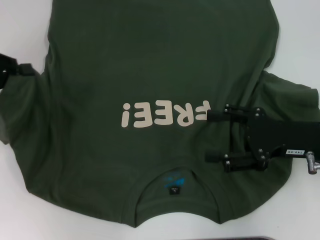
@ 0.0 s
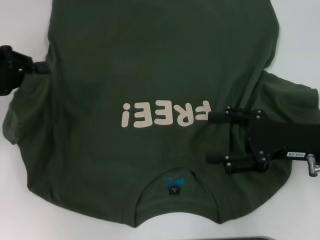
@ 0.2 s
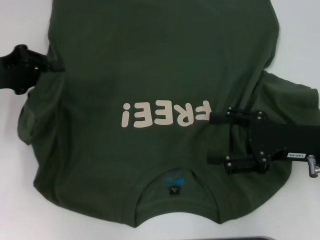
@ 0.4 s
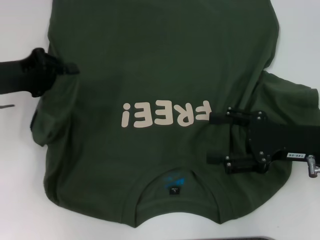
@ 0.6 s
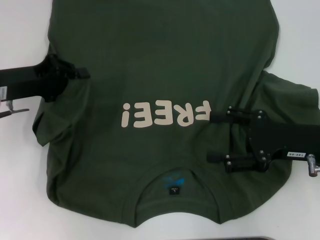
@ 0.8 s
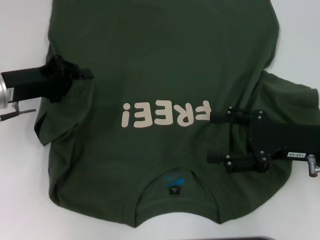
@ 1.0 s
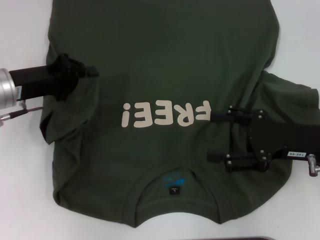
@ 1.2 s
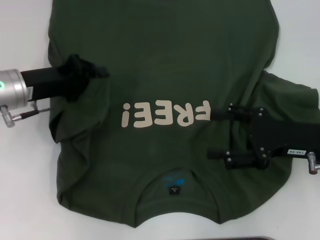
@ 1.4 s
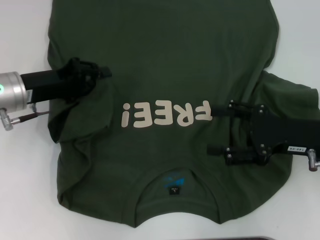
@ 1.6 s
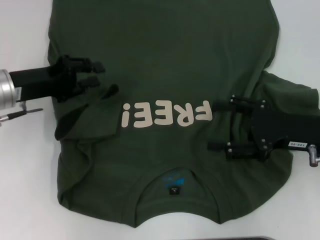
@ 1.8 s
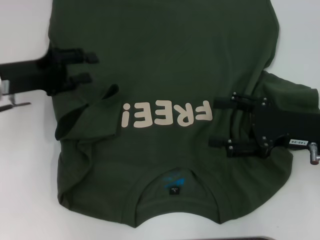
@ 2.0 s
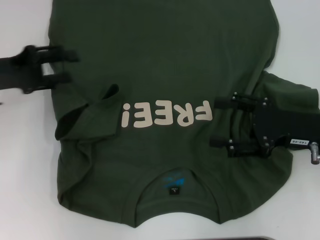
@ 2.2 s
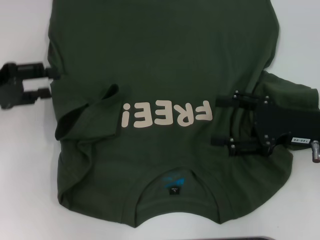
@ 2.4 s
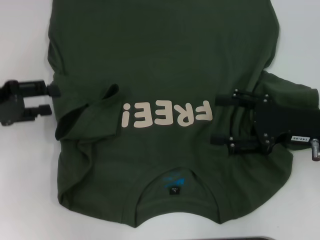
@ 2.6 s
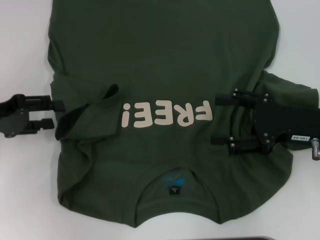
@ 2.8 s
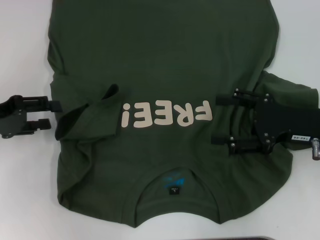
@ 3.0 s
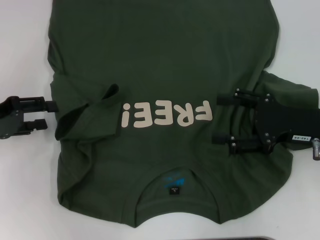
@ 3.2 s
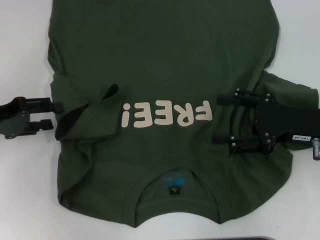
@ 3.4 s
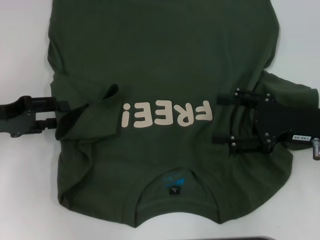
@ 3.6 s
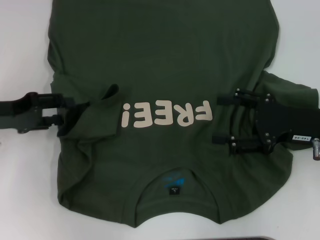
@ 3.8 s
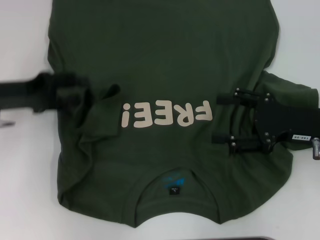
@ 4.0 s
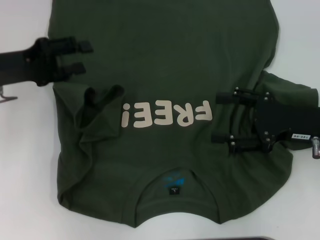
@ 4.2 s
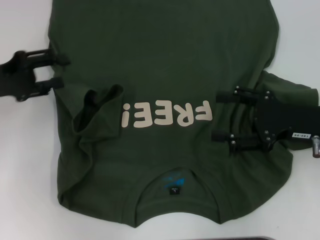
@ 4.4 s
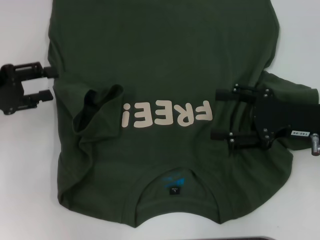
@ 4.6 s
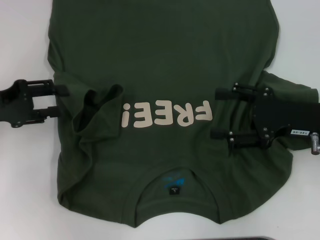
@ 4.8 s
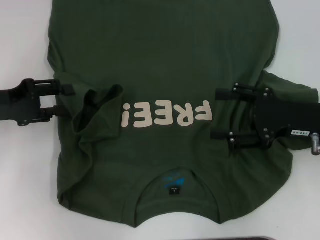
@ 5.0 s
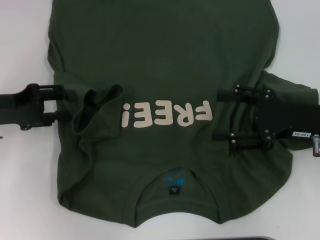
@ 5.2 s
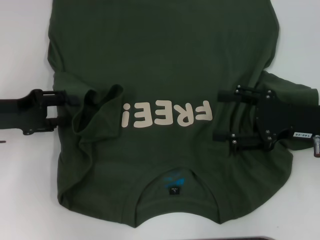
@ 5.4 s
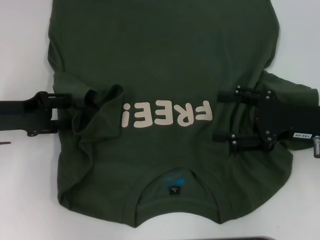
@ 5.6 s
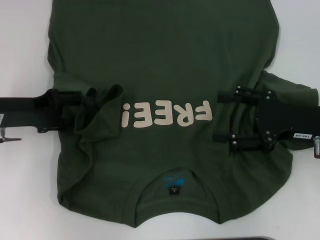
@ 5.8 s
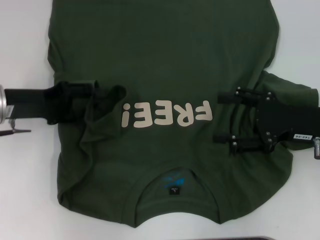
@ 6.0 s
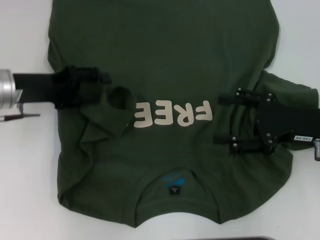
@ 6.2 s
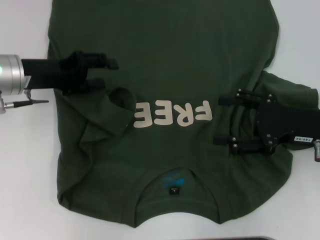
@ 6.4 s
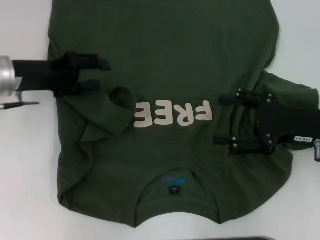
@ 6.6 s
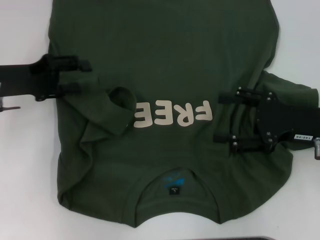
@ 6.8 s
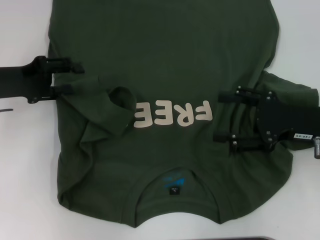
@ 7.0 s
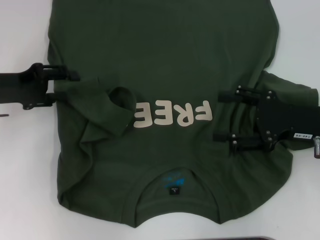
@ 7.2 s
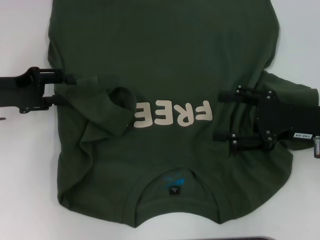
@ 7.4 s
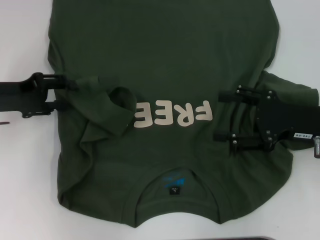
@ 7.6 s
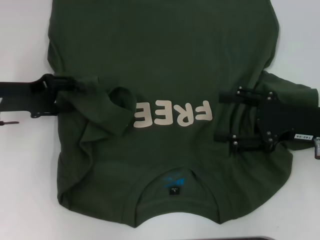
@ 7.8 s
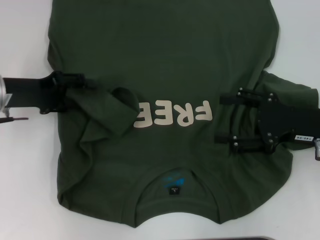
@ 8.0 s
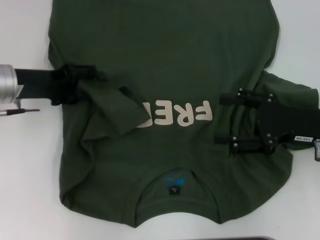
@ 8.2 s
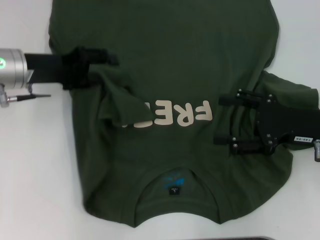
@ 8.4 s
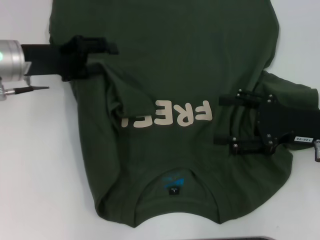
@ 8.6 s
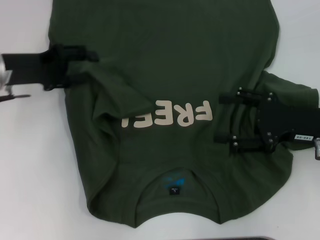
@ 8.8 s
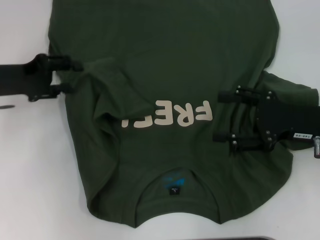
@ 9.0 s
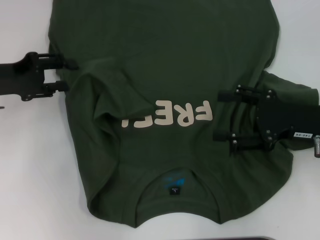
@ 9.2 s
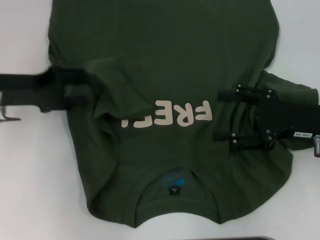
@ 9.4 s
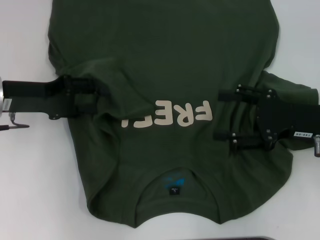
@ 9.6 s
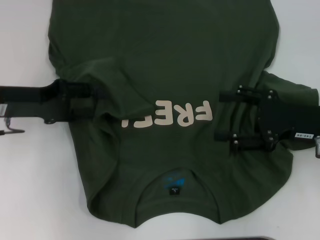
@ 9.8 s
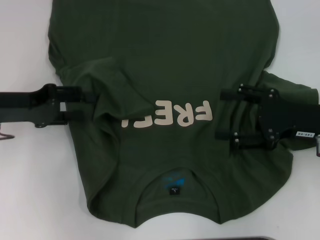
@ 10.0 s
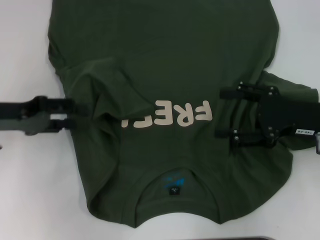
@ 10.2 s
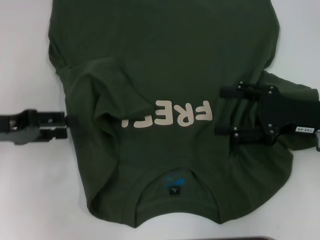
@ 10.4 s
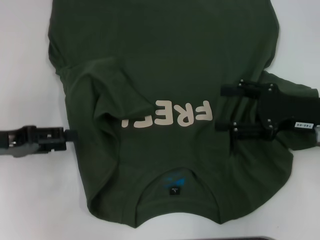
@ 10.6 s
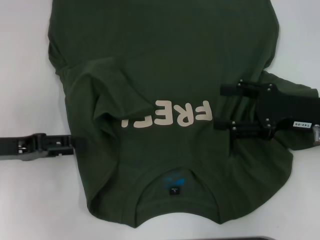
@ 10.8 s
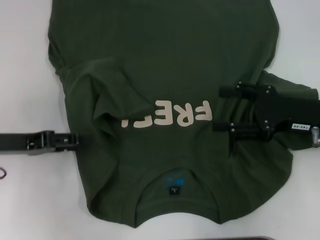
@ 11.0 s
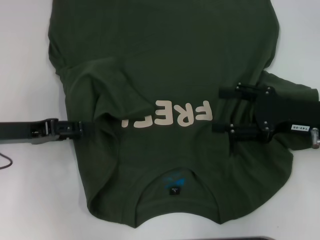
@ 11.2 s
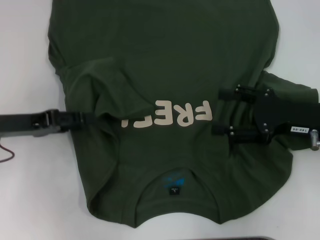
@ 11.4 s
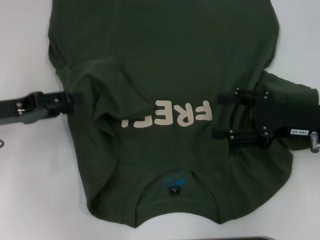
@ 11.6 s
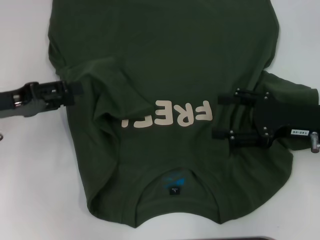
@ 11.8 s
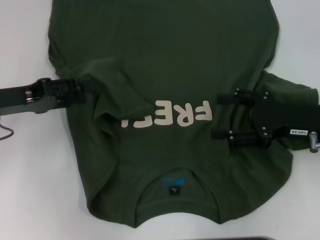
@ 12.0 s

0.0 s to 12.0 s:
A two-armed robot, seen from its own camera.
Step, 0.0 to 10.8 s: Fold the bottom left sleeve with your left hand.
0.0 to 1.6 s: The left gripper is displaced to the right and downward by some 10 cm.
1.6 to 3.0 s: The left gripper travels to the left by some 10 cm, and opens up.
4.4 to 6.0 s: The grippers move only a little.
6.0 to 7.6 s: The grippers move only a little.
9.0 to 10.4 s: The left gripper is displaced backward by approximately 5 cm.
10.4 to 12.0 s: There are only small adjustments of the grippers.

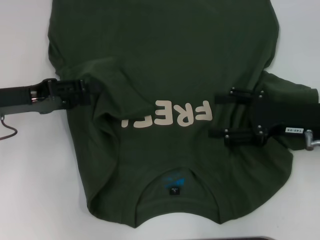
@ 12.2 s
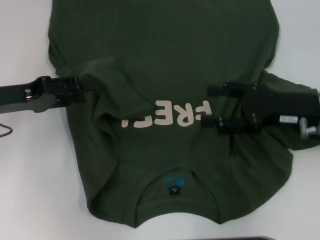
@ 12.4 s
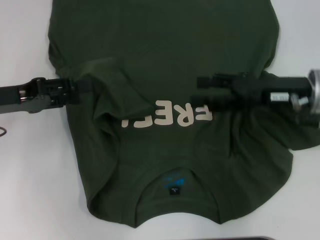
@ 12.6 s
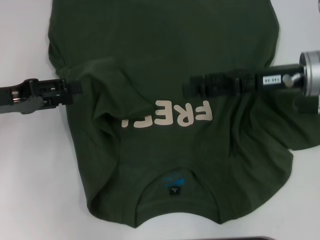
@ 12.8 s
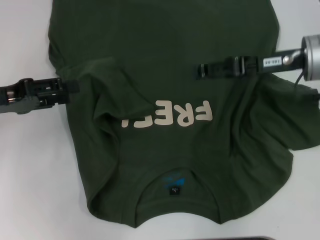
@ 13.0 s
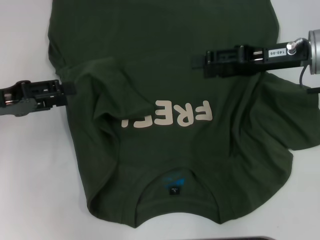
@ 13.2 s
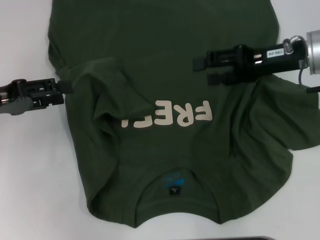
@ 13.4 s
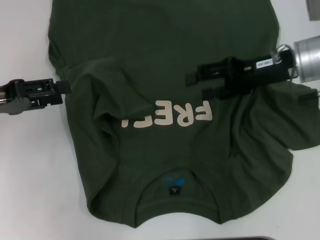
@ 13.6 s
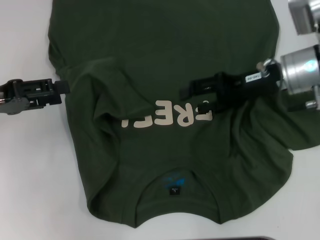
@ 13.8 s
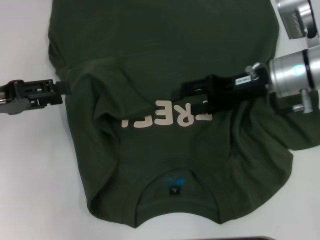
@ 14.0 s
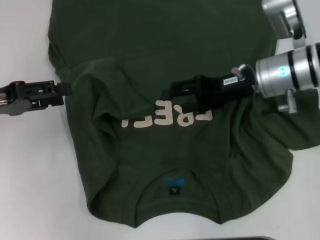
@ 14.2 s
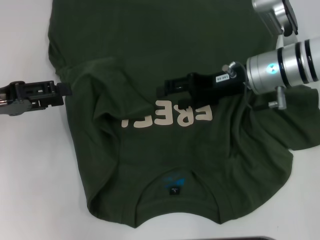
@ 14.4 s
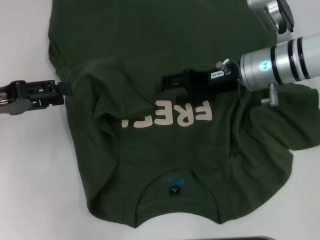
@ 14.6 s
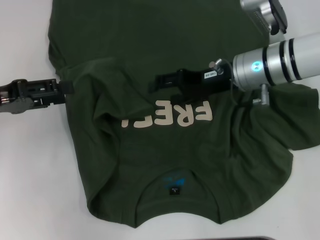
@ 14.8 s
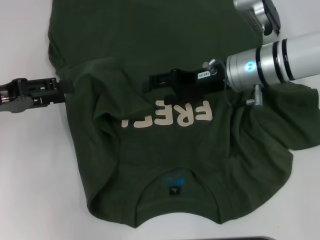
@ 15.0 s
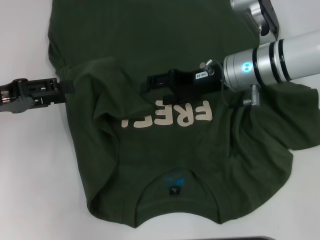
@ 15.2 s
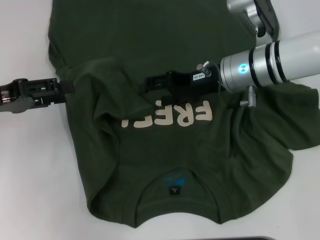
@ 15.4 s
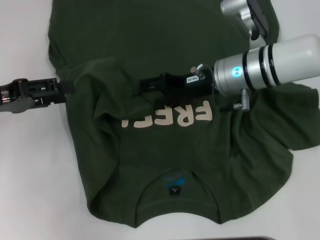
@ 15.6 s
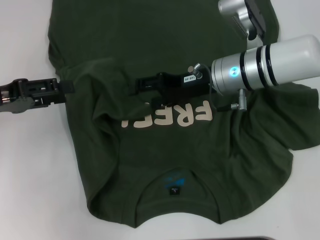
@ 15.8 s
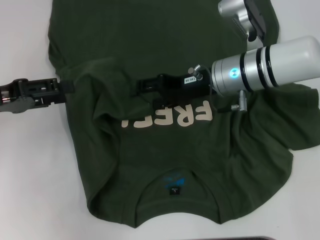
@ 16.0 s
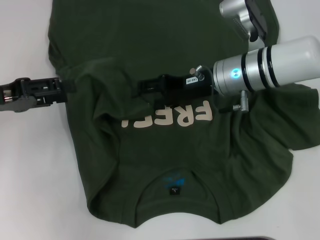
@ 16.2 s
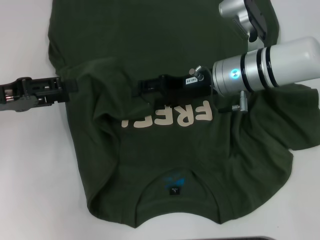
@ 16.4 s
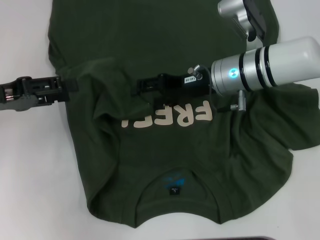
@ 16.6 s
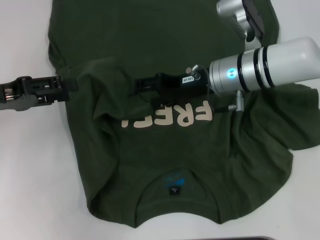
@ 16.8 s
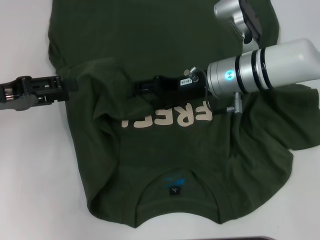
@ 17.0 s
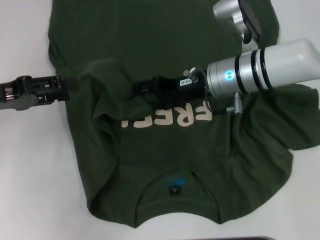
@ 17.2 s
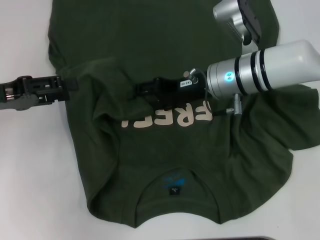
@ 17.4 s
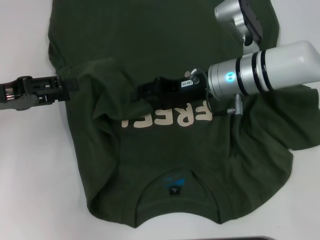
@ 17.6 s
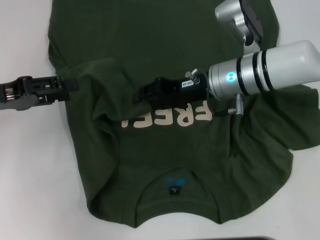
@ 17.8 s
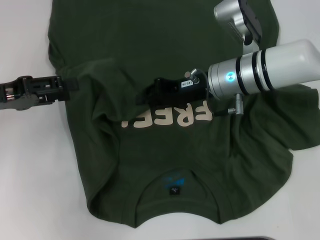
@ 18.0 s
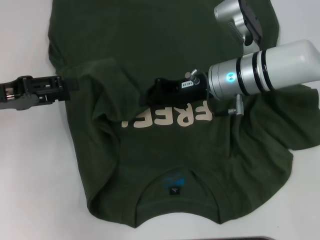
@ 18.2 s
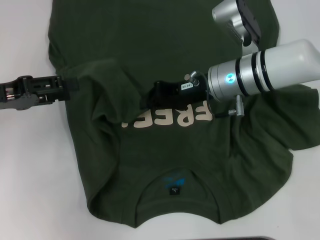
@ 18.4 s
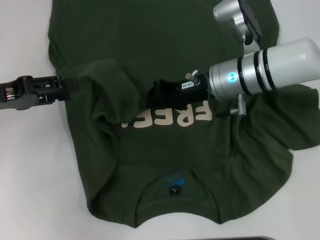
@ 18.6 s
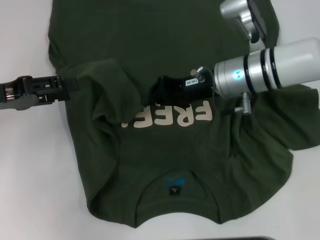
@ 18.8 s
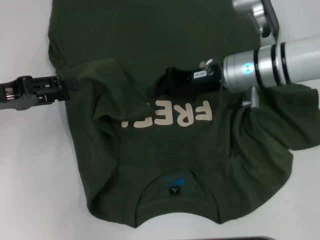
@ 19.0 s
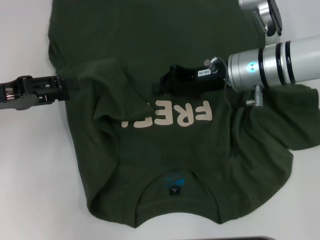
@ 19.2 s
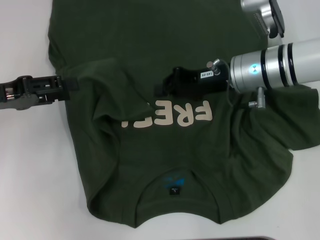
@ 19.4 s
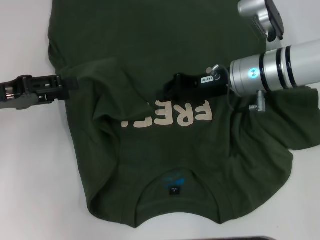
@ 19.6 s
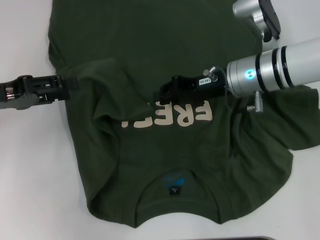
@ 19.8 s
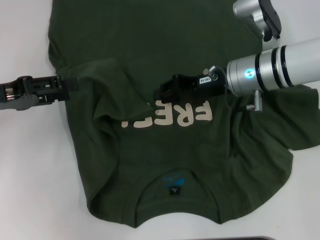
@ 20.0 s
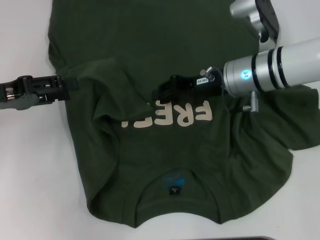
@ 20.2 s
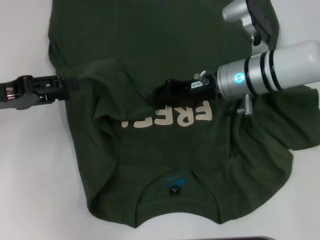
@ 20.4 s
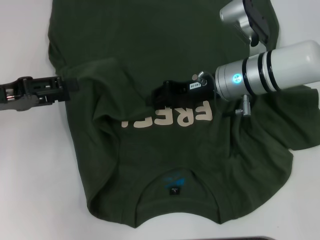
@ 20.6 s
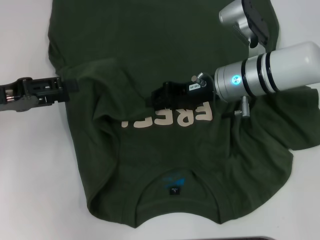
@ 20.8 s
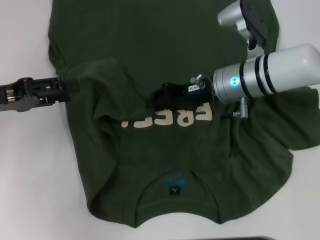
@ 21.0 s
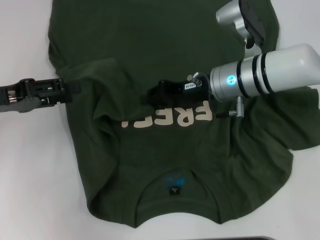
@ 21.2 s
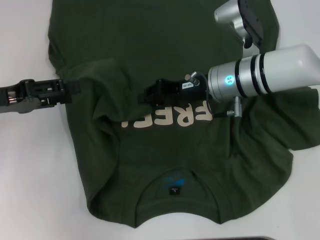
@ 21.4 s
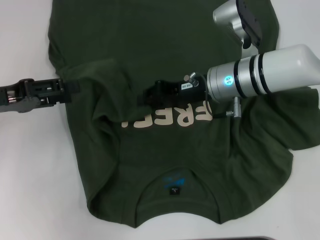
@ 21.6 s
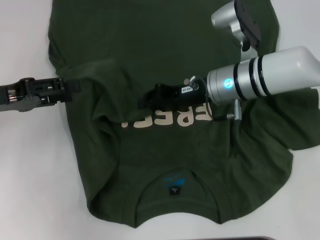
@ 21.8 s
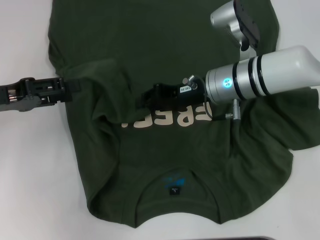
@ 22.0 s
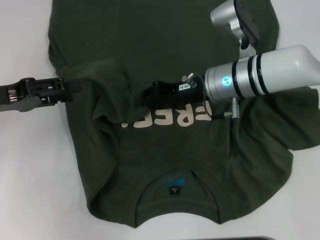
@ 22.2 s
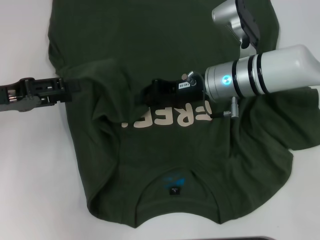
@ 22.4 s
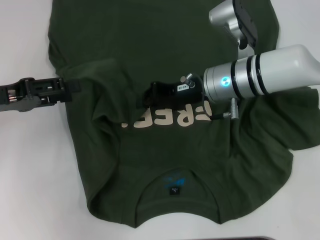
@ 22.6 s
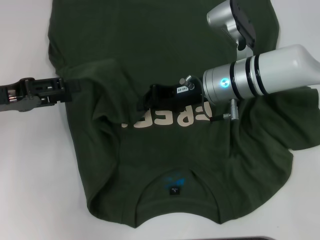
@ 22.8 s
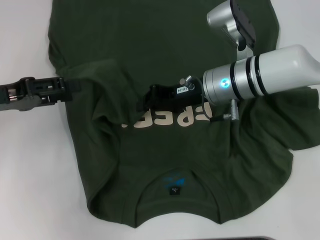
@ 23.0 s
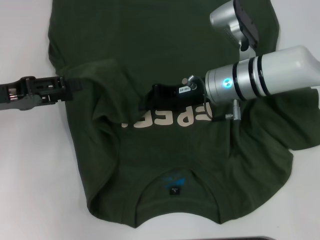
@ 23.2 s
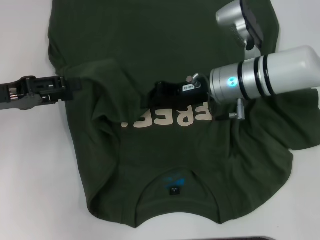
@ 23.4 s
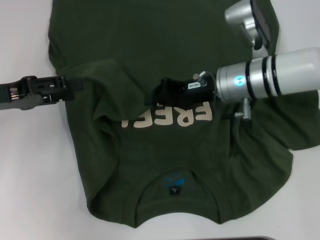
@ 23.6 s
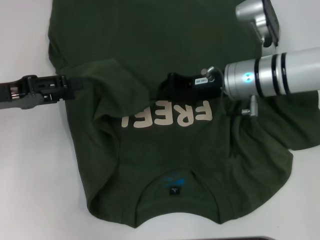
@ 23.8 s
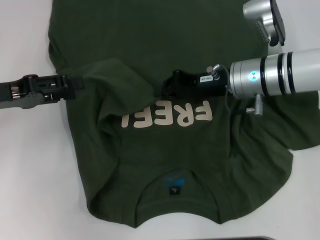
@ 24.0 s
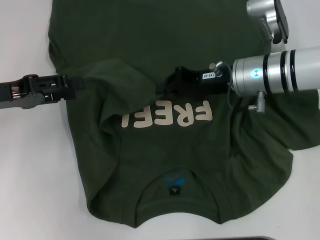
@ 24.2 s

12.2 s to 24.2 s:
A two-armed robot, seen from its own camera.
12.2 to 13.8 s: The right gripper is displaced forward by roughly 10 cm.
13.8 to 15.2 s: The right gripper heads to the left, covering about 5 cm.
15.2 to 16.6 s: The grippers stay close to where they were, moving slightly.
16.6 to 18.2 s: The right gripper closes up.
18.2 to 21.2 s: The grippers stay close to where they were, moving slightly.
21.2 to 22.6 s: Both grippers stay put.
22.6 to 24.2 s: The grippers stay close to where they were, moving slightly.
